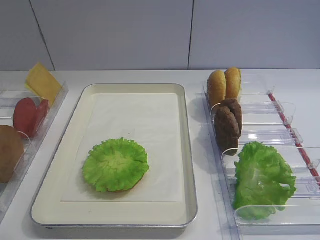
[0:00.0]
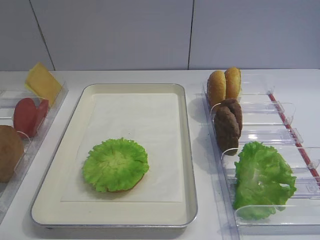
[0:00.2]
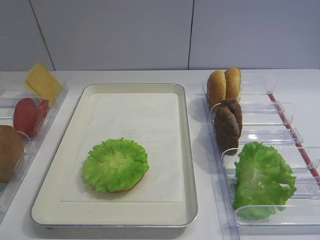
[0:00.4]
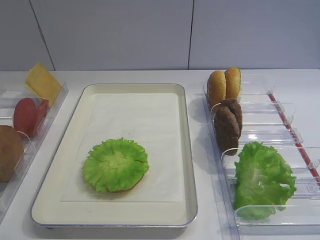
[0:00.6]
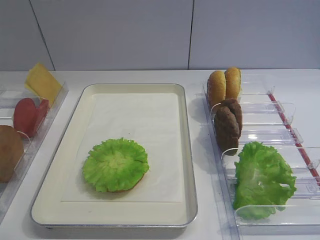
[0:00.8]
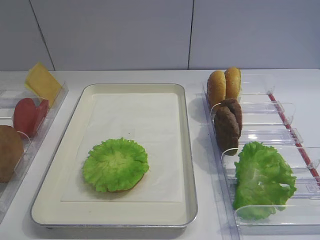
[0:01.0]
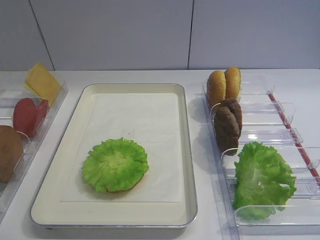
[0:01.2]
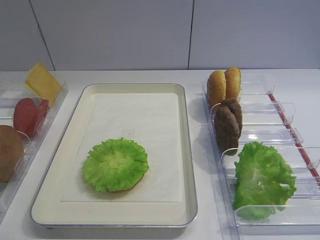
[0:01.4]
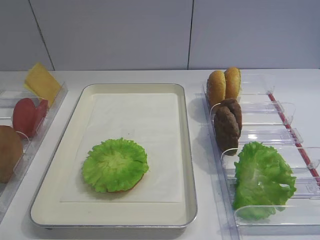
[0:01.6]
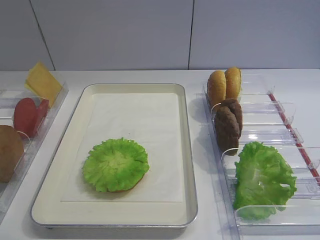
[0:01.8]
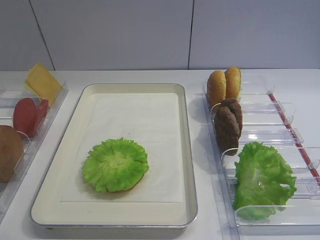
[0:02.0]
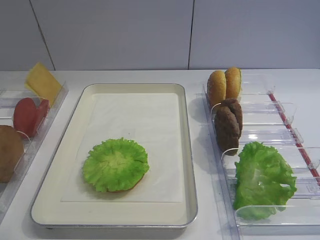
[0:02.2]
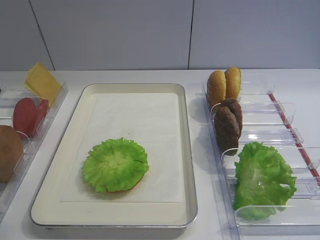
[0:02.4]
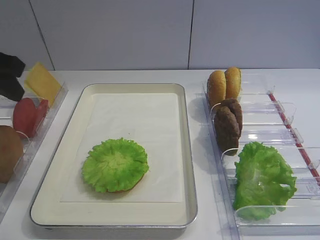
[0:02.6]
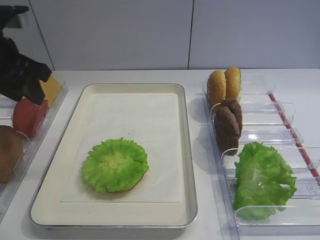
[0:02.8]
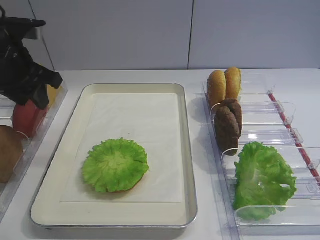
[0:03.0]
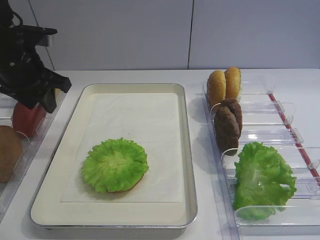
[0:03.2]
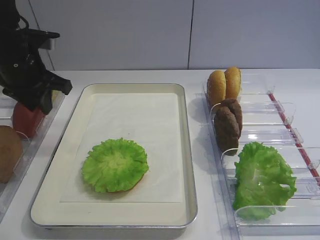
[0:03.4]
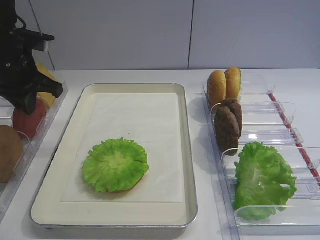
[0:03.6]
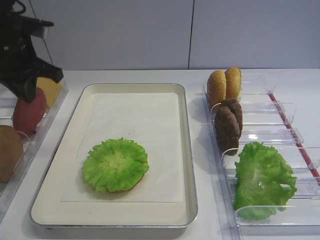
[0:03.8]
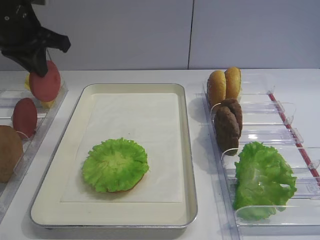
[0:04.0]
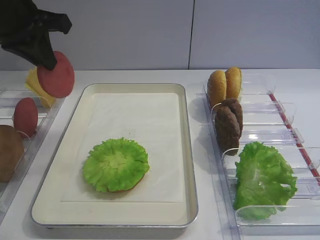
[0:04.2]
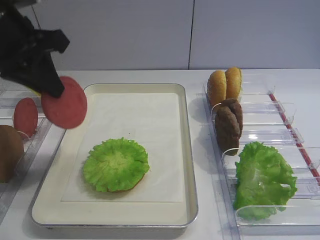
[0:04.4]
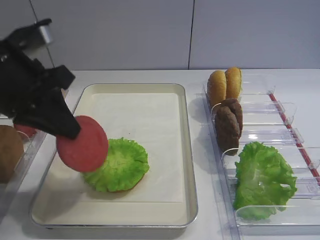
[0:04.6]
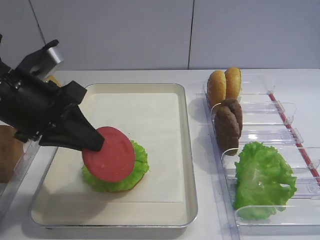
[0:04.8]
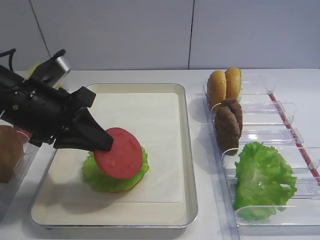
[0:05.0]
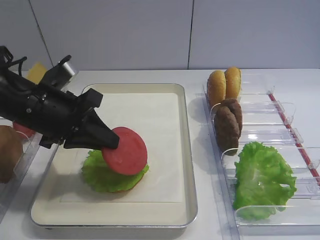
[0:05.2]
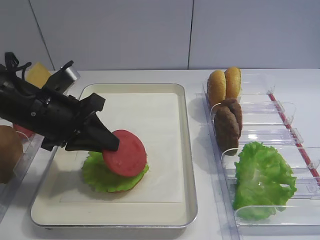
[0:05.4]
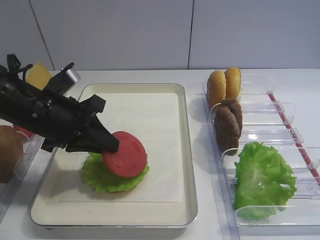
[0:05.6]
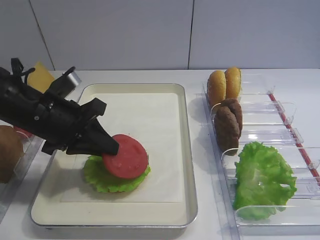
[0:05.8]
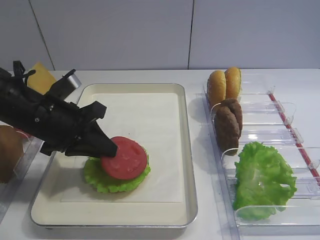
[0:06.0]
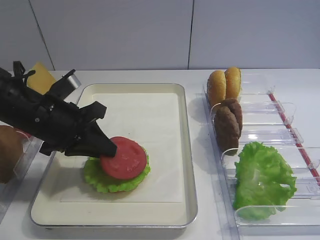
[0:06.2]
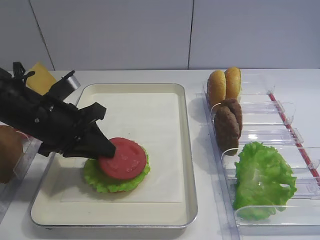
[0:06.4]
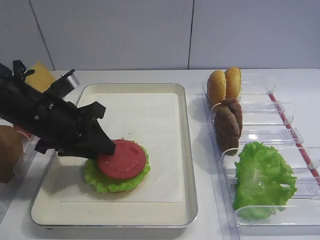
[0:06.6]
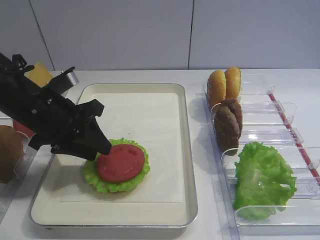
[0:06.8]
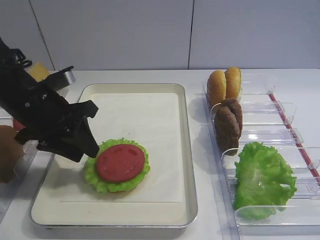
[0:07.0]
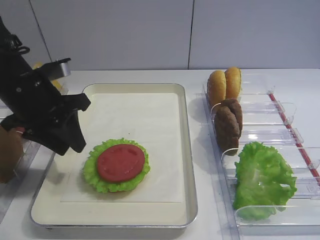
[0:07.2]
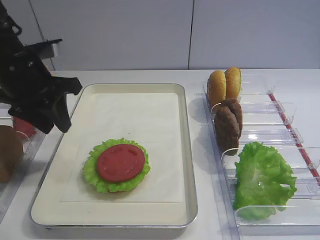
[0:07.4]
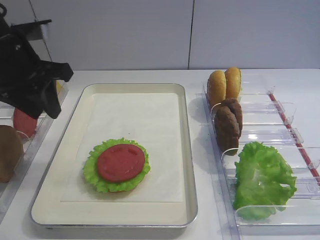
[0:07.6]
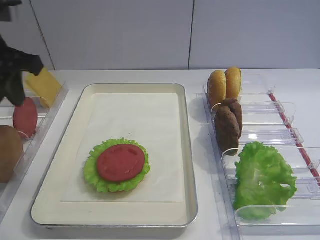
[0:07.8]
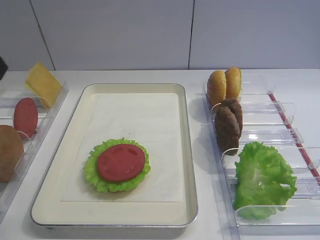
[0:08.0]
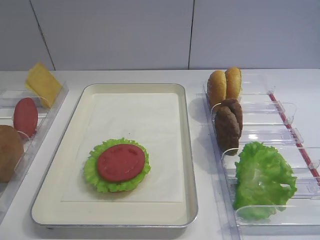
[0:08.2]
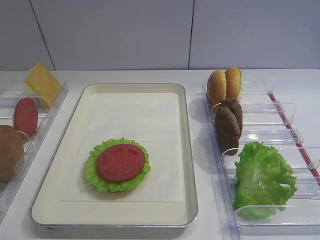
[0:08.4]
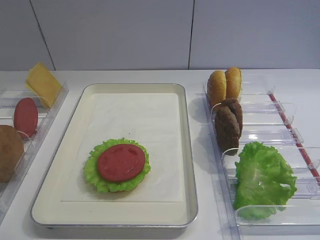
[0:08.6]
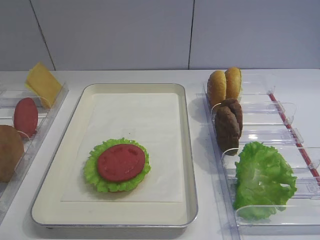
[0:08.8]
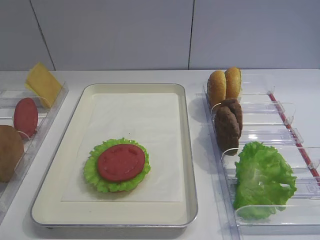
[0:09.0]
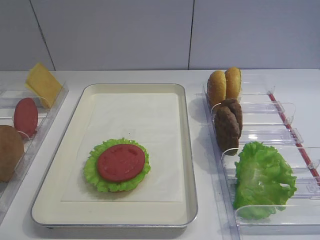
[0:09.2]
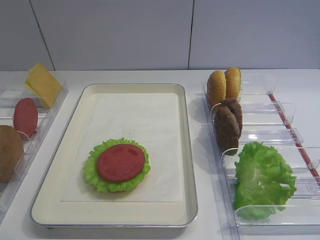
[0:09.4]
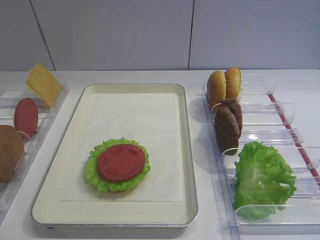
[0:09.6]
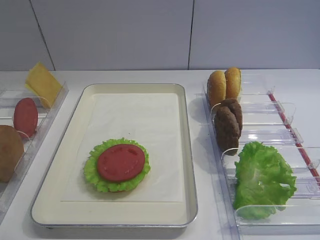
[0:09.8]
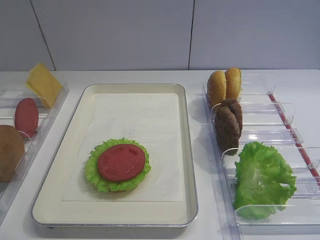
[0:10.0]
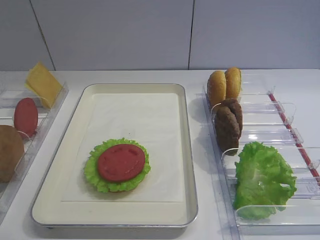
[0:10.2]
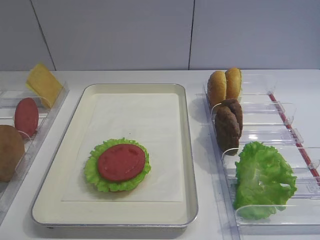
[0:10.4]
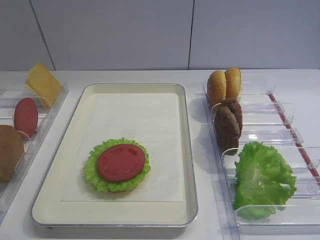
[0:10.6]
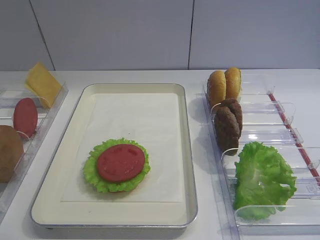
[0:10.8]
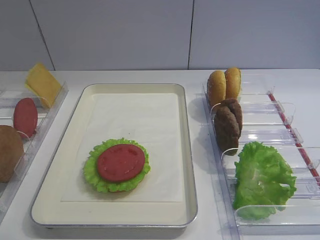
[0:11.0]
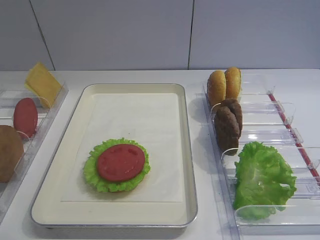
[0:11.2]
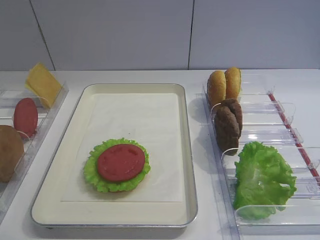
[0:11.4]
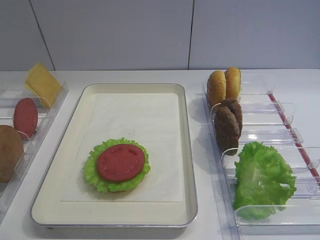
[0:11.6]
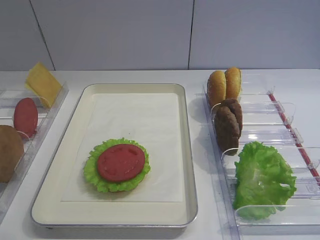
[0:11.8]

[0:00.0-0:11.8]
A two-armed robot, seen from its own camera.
Step, 0:00.0 to 0:03.8: Pick up the tomato slice with the left gripper.
Step, 0:04.0 to 0:07.4: Place the tomato slice on the lettuce leaf with the left gripper.
0:01.4 to 0:03.0: The left gripper shifts roughly 35 cm forward.
0:03.0 to 0:04.4: The left gripper moves backward and upward, about 10 cm, and closes its fingers.
0:04.4 to 0:06.0: The left gripper heads downward, covering some 10 cm.
0:06.0 to 0:07.4: The left gripper moves upward, approximately 10 cm, and opens up.
0:07.4 to 0:08.8: The left gripper travels backward by roughly 30 cm.
0:10.4 to 0:11.8: Both grippers stay about where they are.

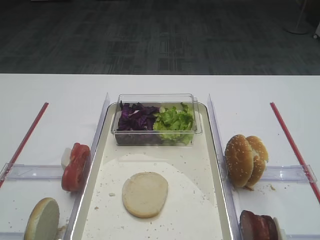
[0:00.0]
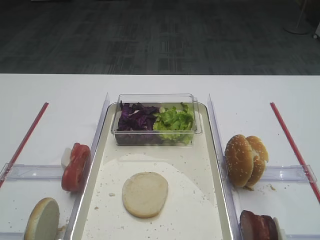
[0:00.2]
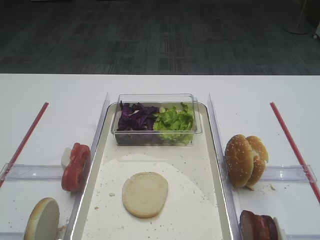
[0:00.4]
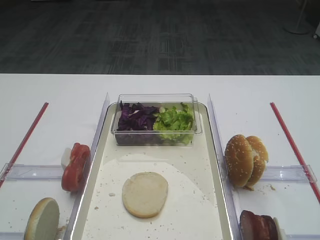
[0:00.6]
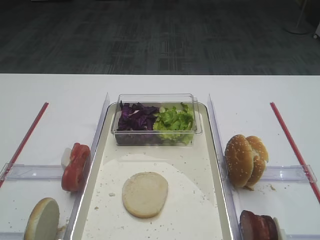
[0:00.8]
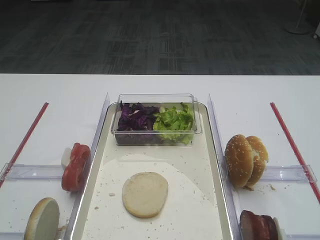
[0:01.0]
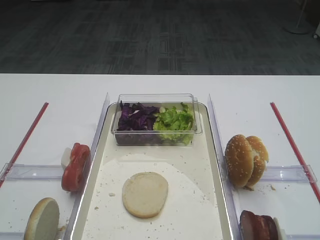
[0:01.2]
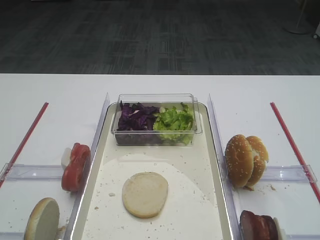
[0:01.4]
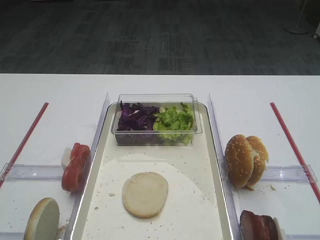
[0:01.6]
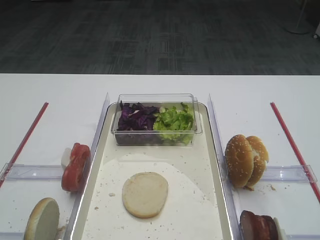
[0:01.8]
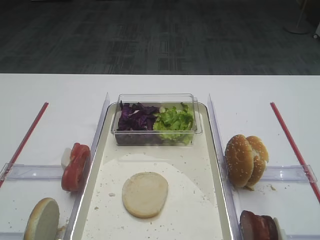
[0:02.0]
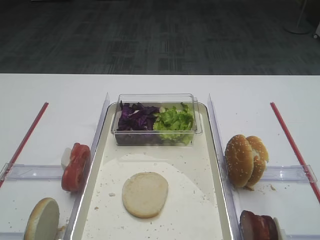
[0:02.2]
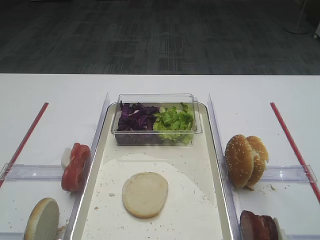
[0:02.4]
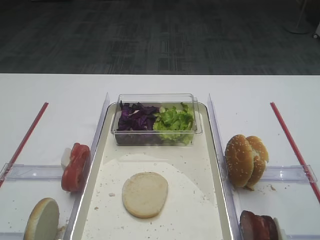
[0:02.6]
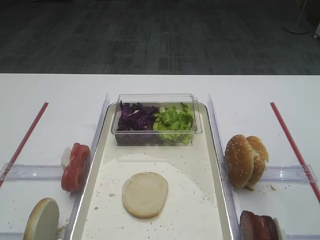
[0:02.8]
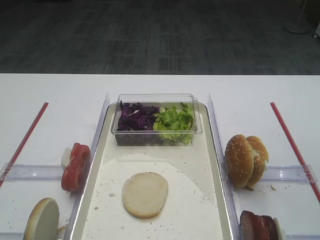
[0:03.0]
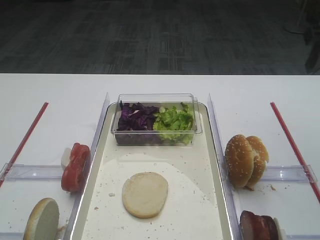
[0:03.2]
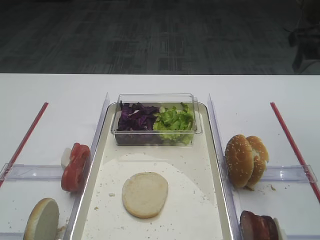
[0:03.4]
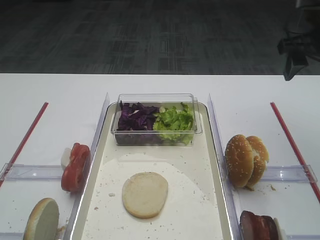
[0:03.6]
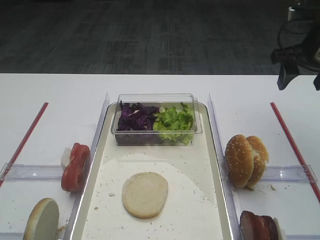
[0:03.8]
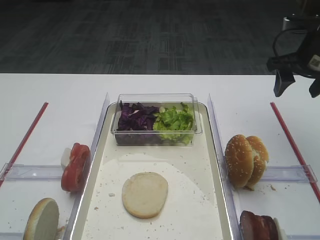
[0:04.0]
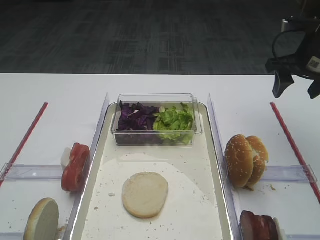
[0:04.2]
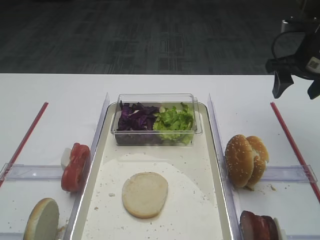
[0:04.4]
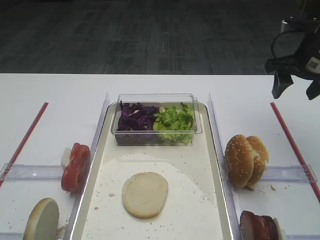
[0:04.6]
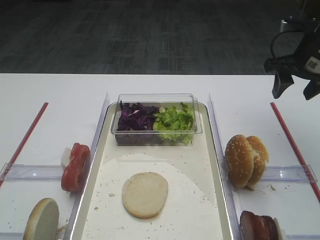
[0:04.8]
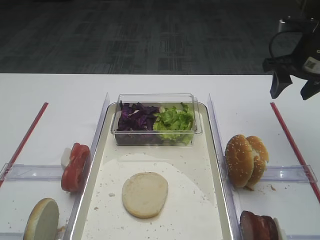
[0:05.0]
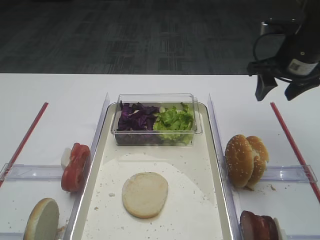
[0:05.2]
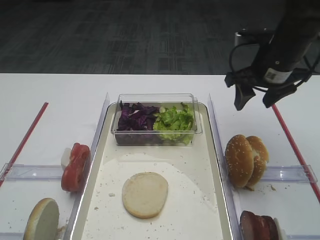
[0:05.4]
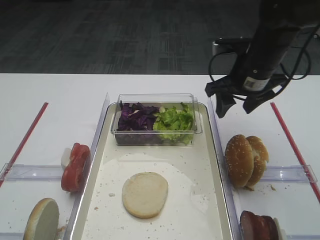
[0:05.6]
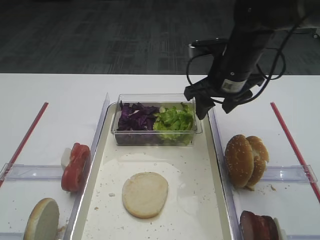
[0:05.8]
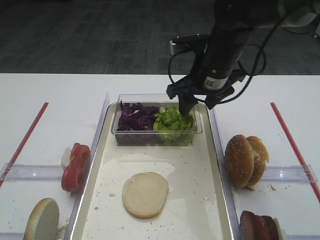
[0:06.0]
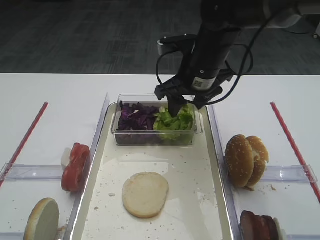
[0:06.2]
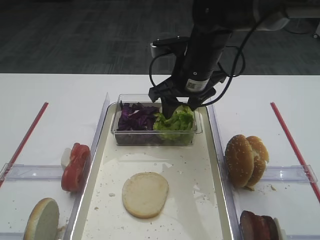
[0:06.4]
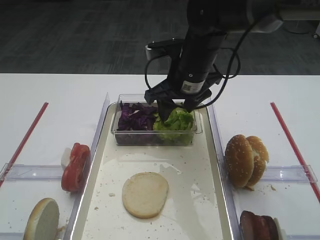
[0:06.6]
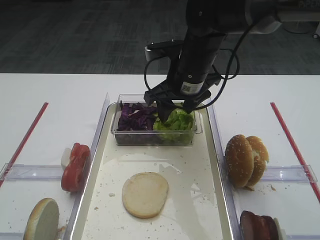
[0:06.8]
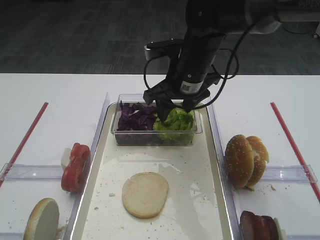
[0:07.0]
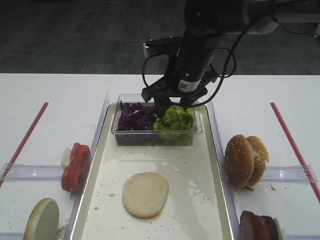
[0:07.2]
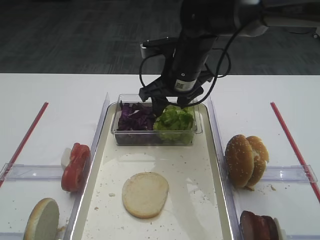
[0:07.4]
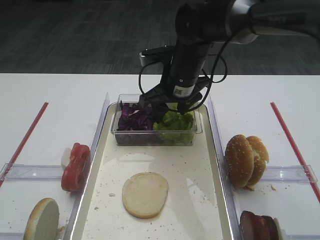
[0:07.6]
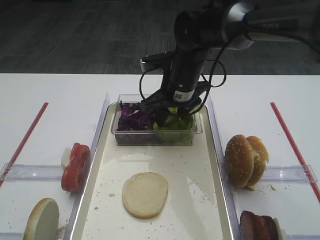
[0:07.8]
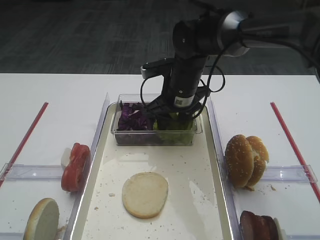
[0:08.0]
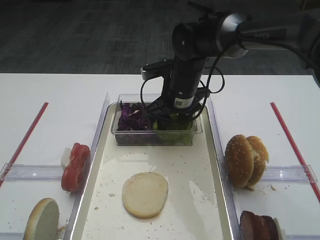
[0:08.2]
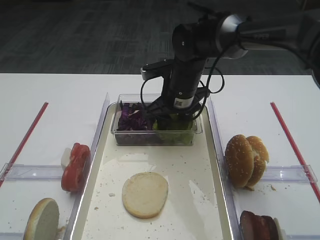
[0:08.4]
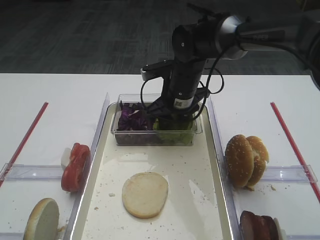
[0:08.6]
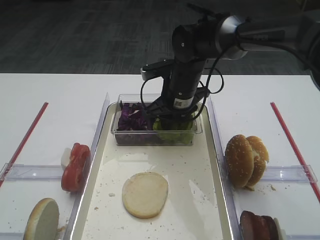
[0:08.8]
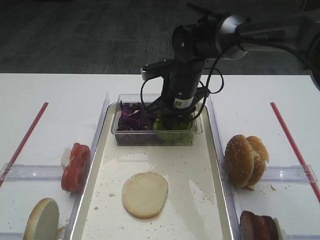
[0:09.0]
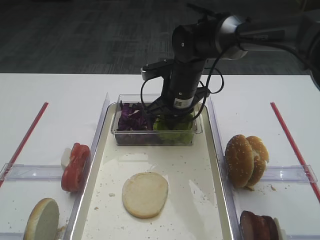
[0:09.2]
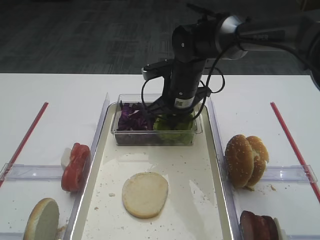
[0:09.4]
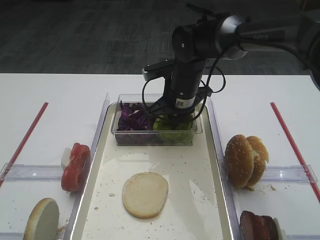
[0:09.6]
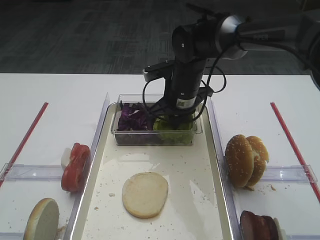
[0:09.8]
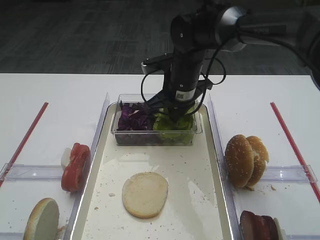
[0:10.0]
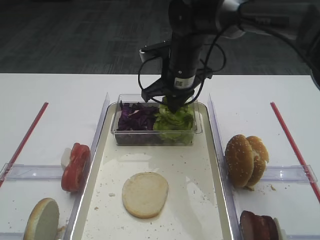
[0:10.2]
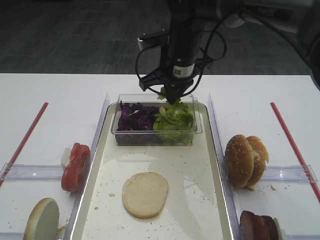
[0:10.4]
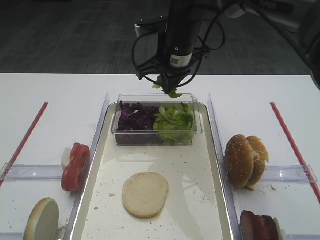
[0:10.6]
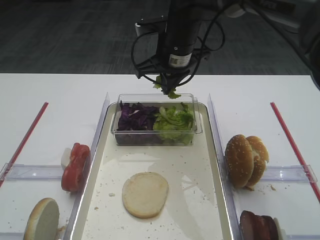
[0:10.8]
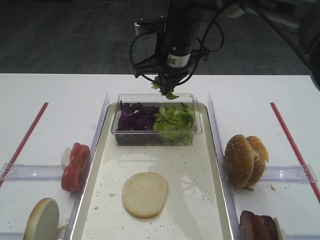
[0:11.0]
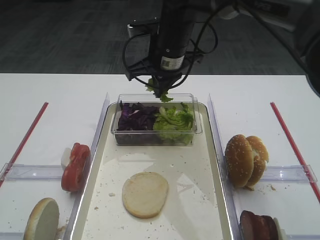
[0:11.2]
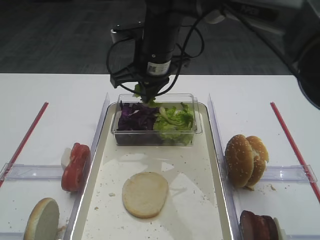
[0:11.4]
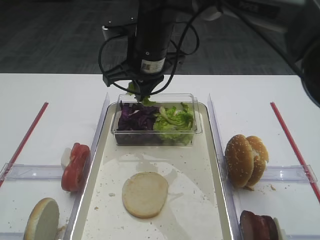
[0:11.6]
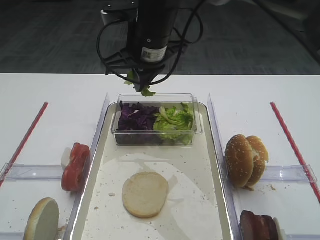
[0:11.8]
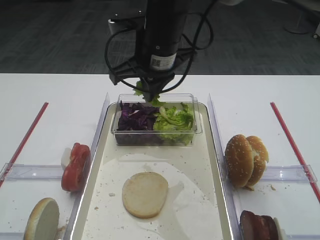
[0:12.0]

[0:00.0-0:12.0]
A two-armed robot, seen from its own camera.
Step, 0:00.0 to 0:10.4: Pick up the lettuce leaf with the right gripper.
0:03.0 to 0:04.4: The right gripper goes some 20 cm forward and downward.
0:04.4 to 0:06.0: The right gripper travels to the left by approximately 15 cm.
0:06.0 to 0:07.6: The right gripper moves to the left, roughly 5 cm.
0:07.6 to 0:09.0: There are only small adjustments of the grippers.
0:09.0 to 0:10.4: The right gripper shifts roughly 5 cm upward, and closes.
0:10.4 to 0:12.0: The right gripper moves upward, some 5 cm.
